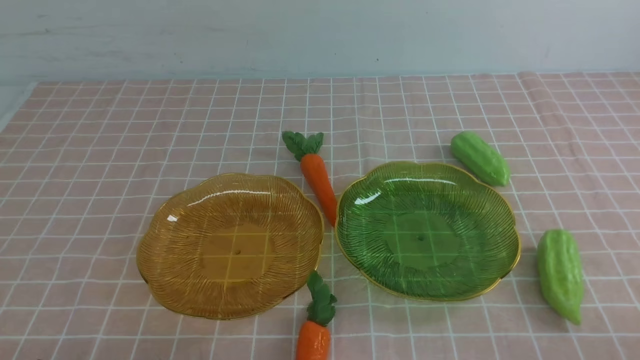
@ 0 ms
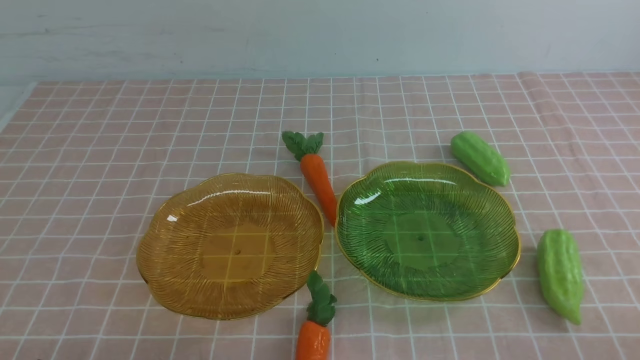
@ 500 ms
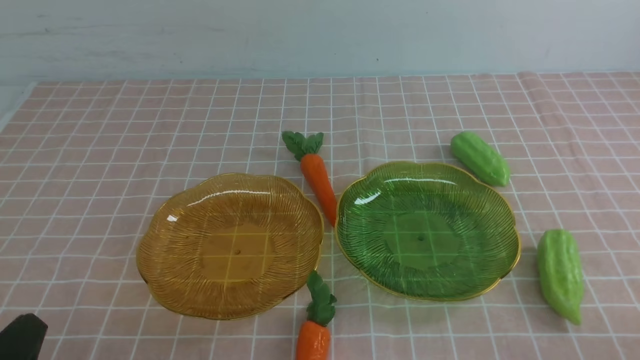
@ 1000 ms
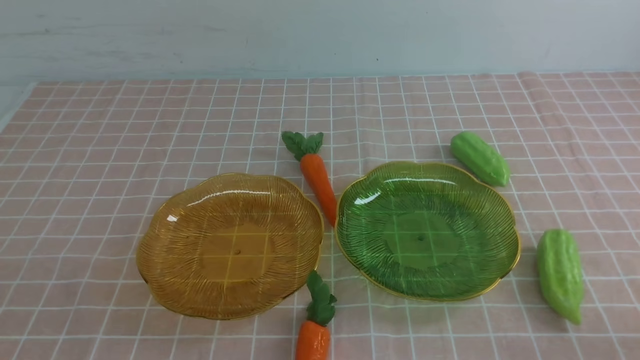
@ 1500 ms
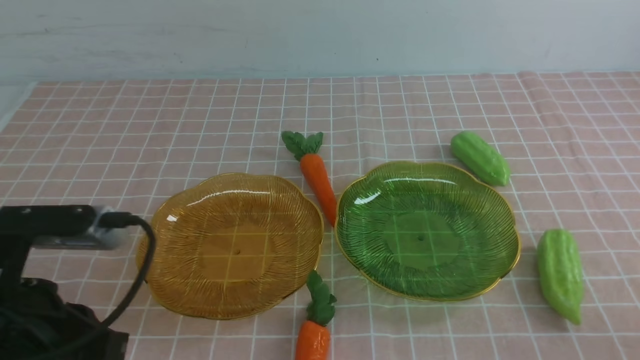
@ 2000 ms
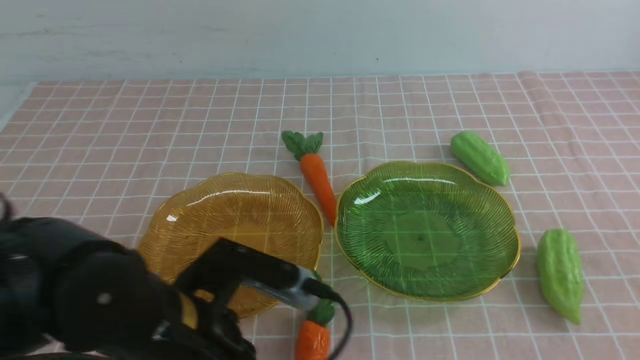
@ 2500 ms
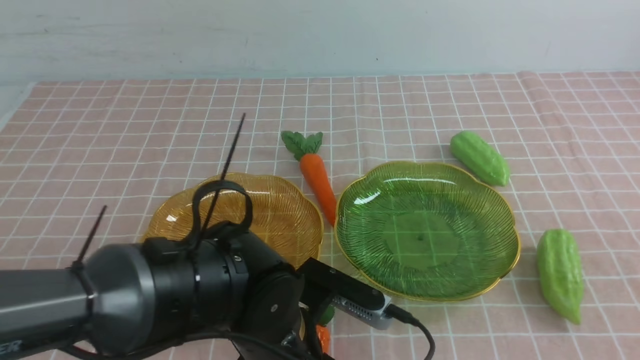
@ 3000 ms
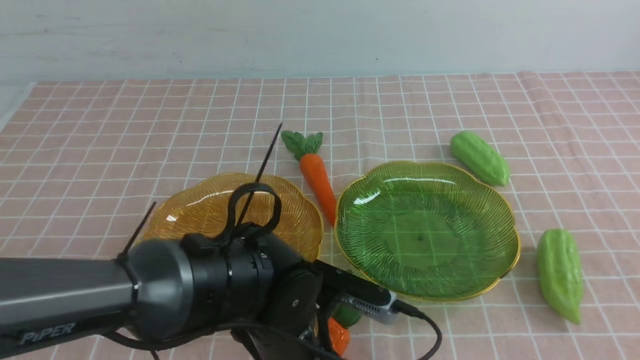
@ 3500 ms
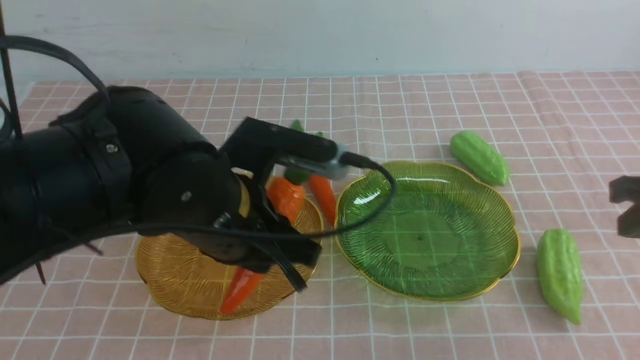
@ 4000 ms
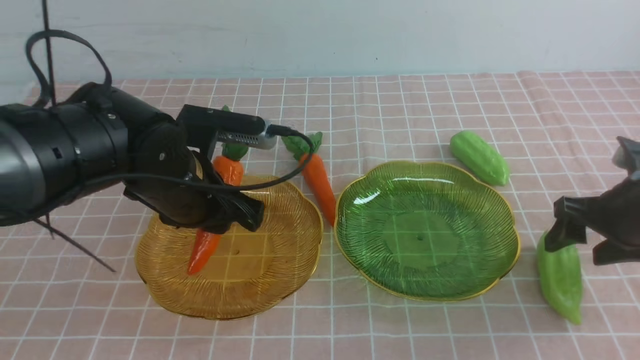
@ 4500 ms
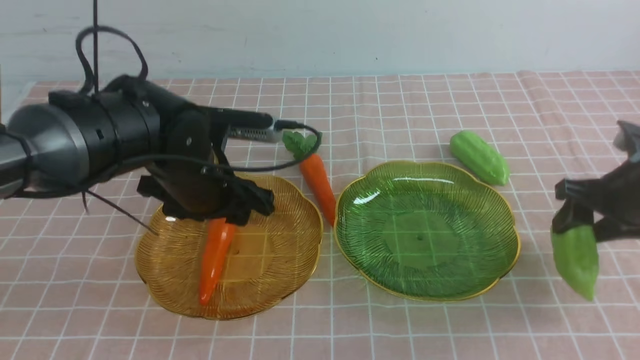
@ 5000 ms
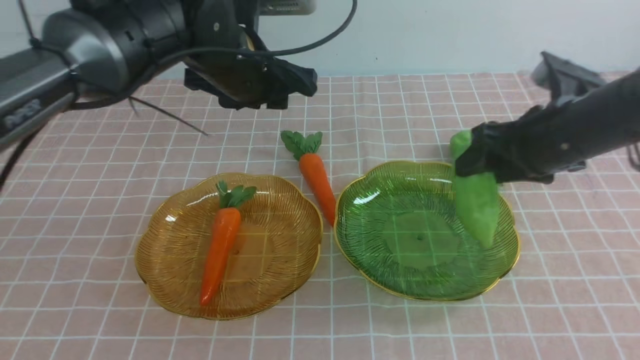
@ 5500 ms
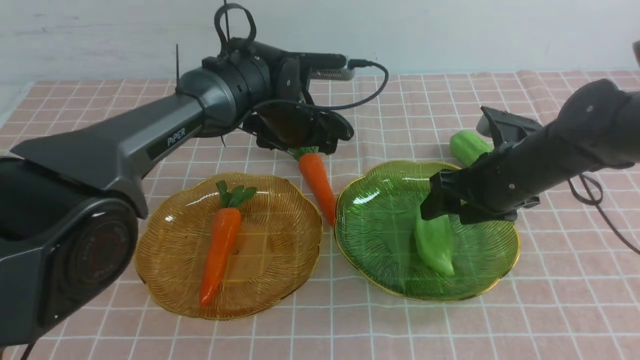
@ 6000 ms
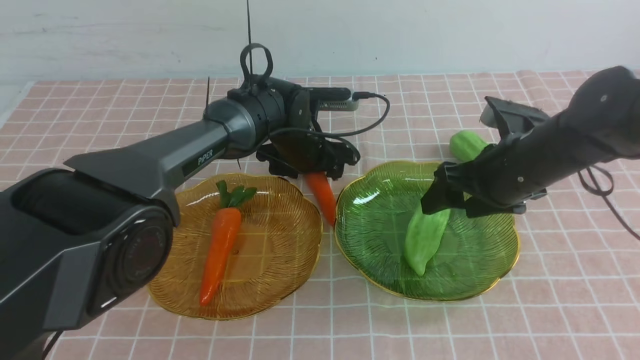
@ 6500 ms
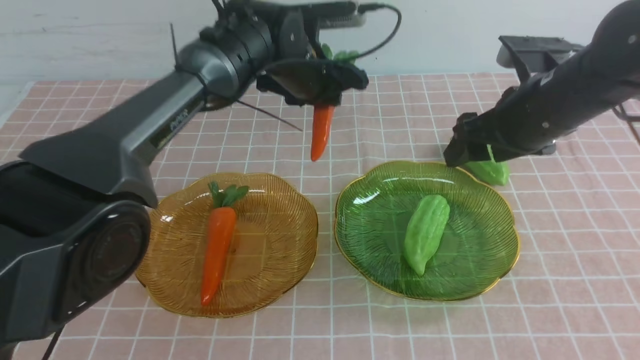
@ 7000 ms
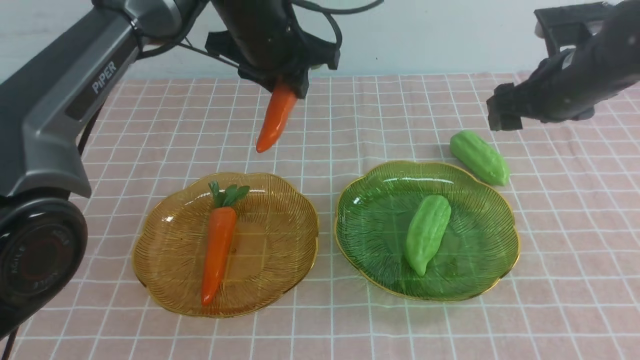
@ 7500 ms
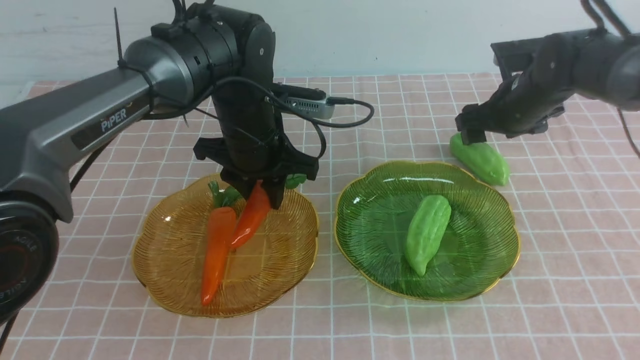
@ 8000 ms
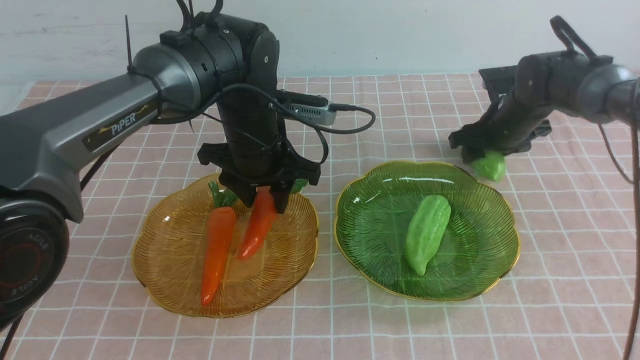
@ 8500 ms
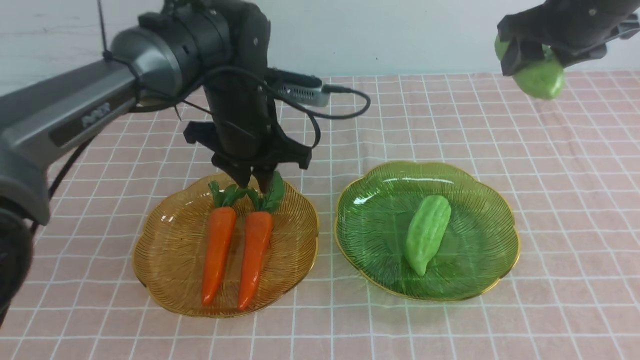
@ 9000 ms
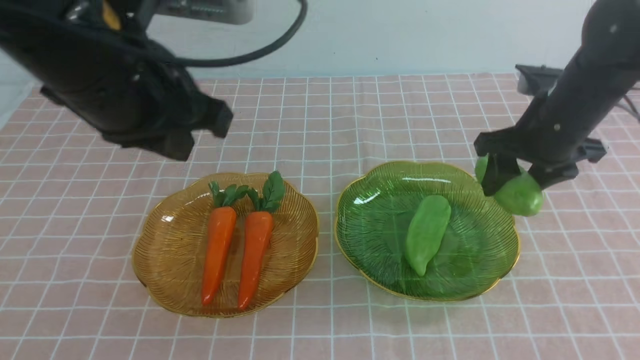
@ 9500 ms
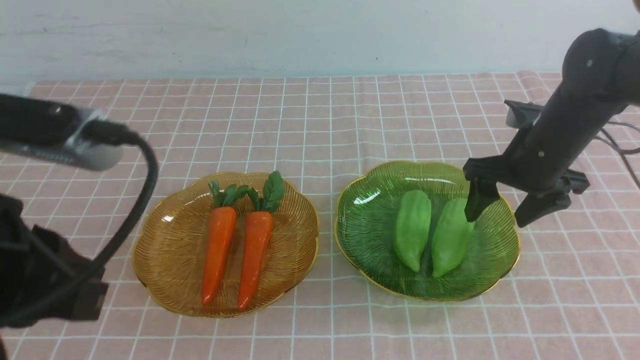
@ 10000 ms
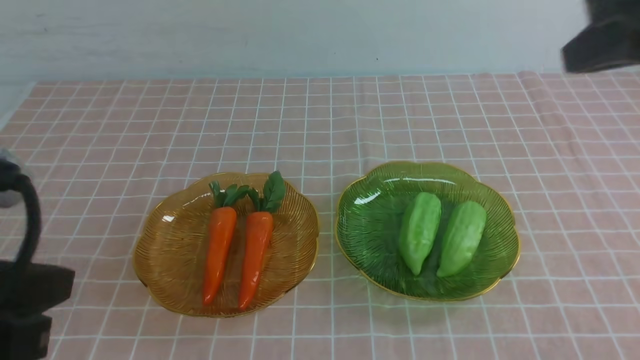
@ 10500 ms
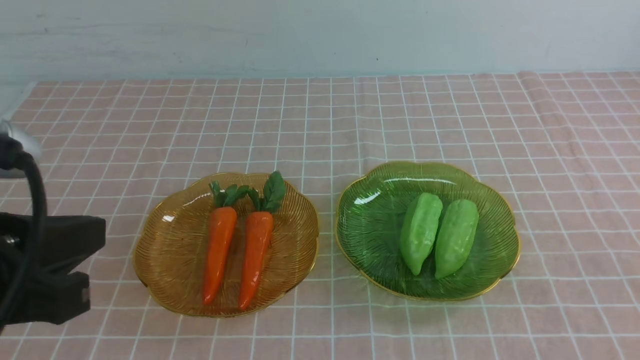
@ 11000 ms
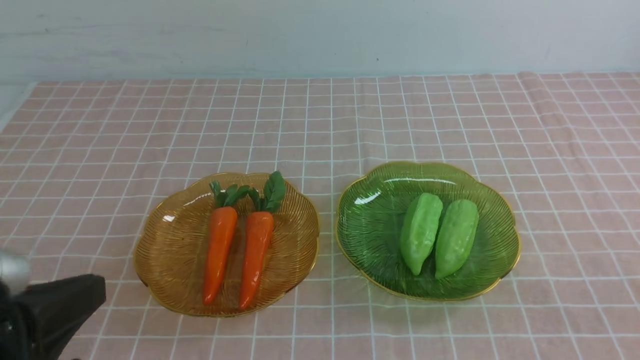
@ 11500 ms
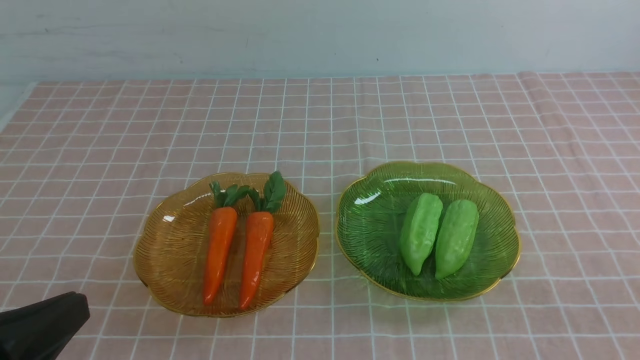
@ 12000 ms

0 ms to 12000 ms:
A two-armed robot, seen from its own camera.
Step, 0 ms to 4000 ms: use the left arm to grab a carrot and put it into the left plate.
Step, 4500 ms to 5500 ms: use the right arm to grab a chayote and put it into the right plate.
Step, 6000 ms to 8500 ms: use the left arm to grab a carrot and put it into the left plate.
Step, 9000 ms to 9500 ms: use the right arm to grab a chayote and put it into the right plate.
0 ms to 2000 ms: The left gripper heads upward and forward, covering approximately 15 cm.
2000 ms to 4000 ms: The left gripper shifts approximately 15 cm to the right and forward. Meanwhile the right gripper shifts some 20 cm forward.
4000 ms to 6000 ms: The right gripper moves to the left, forward and downward, about 15 cm, and opens; the left gripper is displaced forward and downward by approximately 25 cm, and opens up.
6000 ms to 8000 ms: The right gripper moves forward, some 10 cm. Meanwhile the left gripper is displaced backward and upward by roughly 10 cm, and closes.
8000 ms to 10000 ms: The right gripper goes roughly 10 cm backward, and travels upward and back again, approximately 15 cm each way. Meanwhile the left gripper goes about 30 cm backward, upward and to the left, and closes up.
10000 ms to 12000 ms: The left gripper is displaced downward and backward by roughly 10 cm, while the right gripper moves backward, about 35 cm, and closes its fingers.

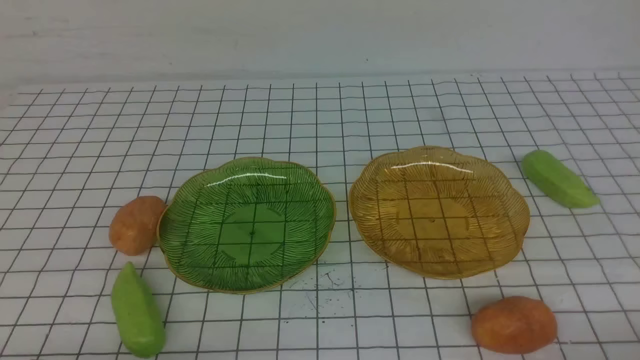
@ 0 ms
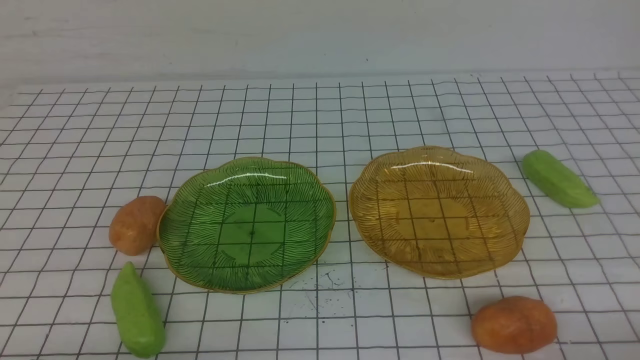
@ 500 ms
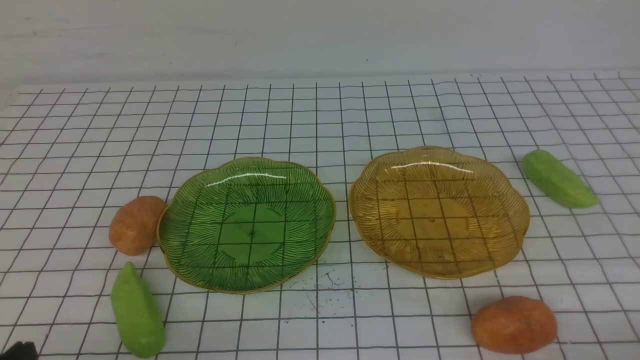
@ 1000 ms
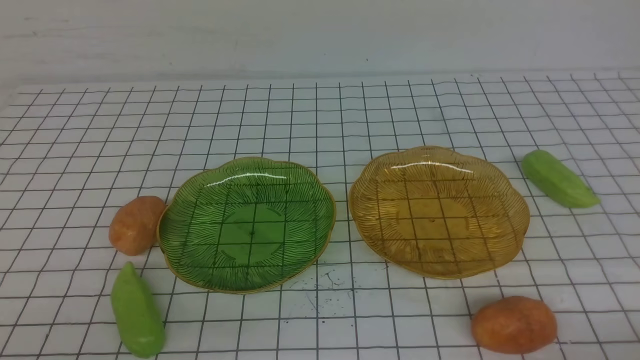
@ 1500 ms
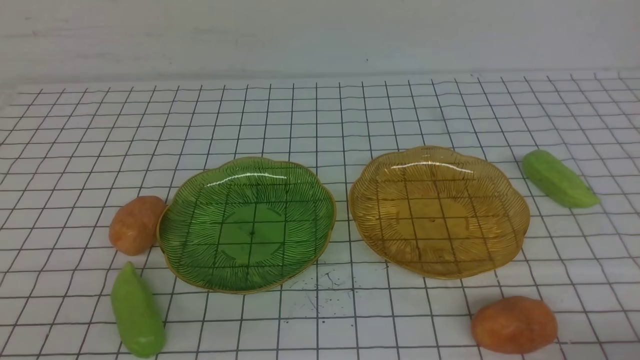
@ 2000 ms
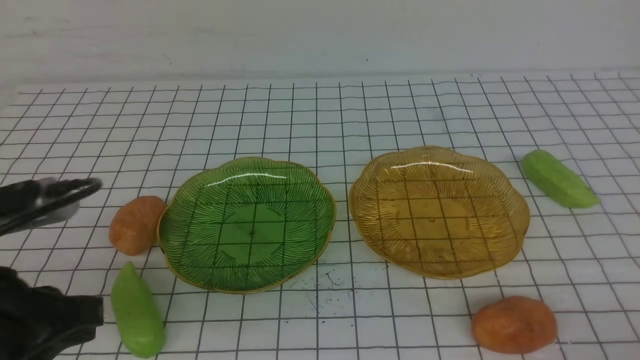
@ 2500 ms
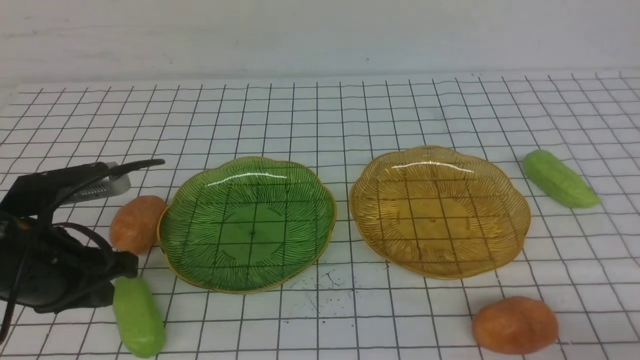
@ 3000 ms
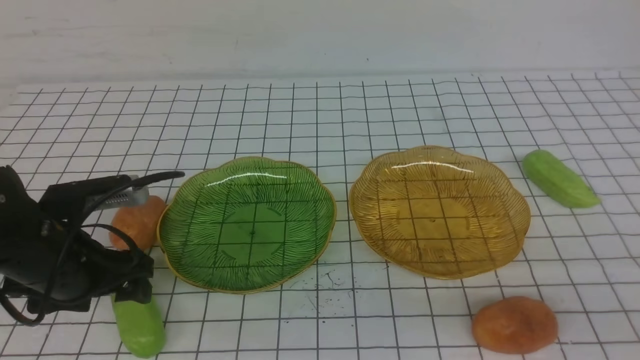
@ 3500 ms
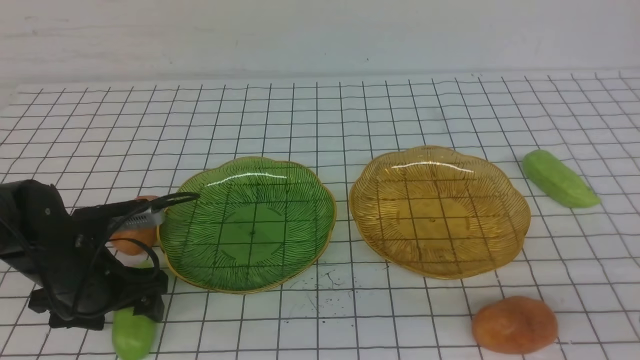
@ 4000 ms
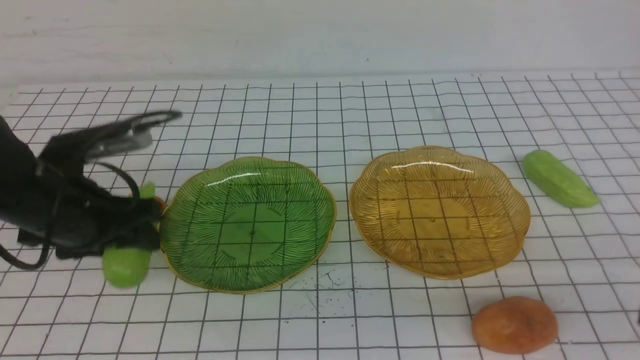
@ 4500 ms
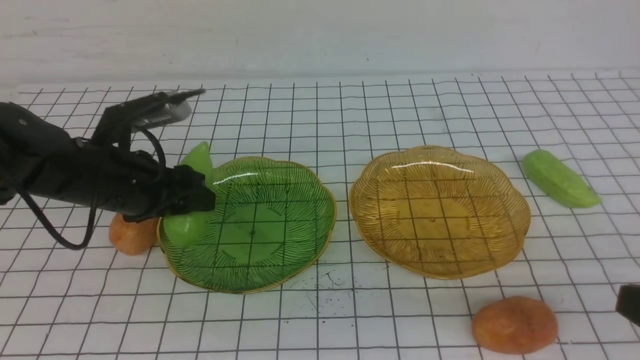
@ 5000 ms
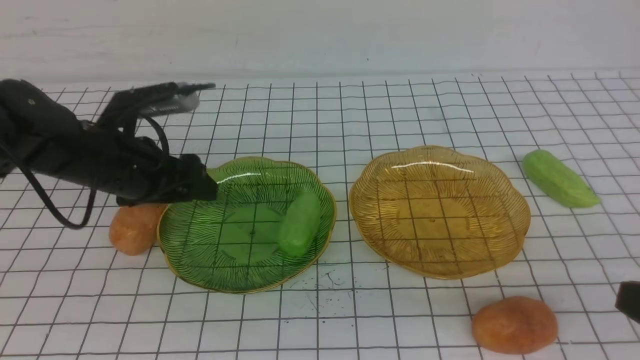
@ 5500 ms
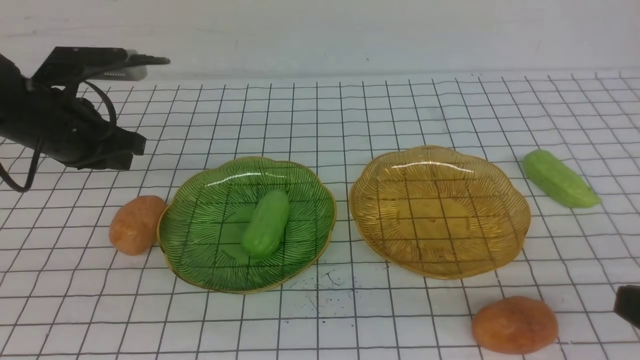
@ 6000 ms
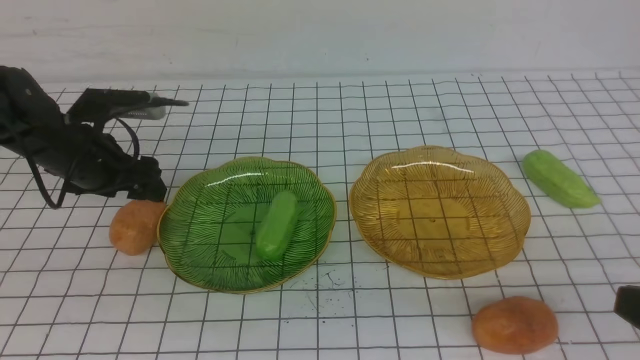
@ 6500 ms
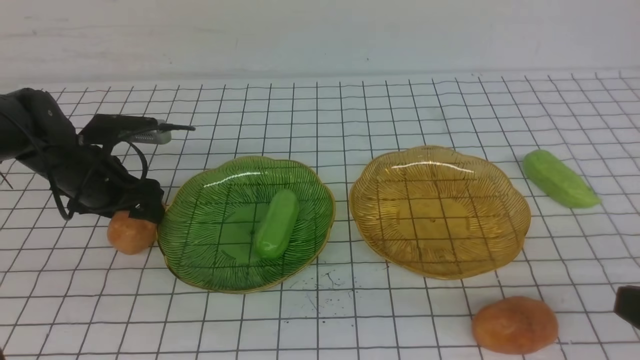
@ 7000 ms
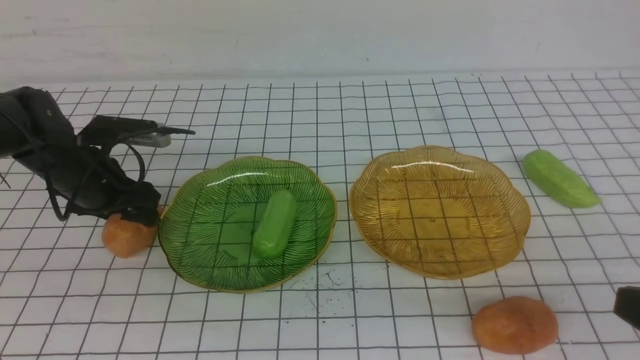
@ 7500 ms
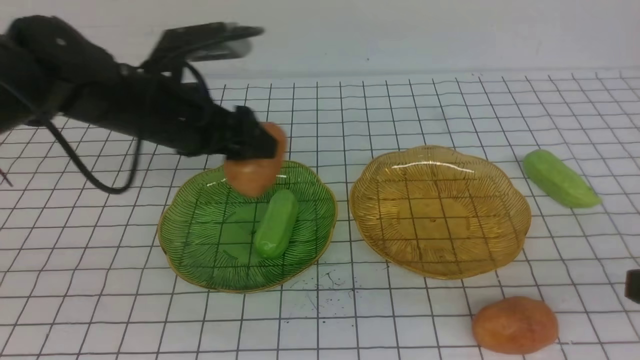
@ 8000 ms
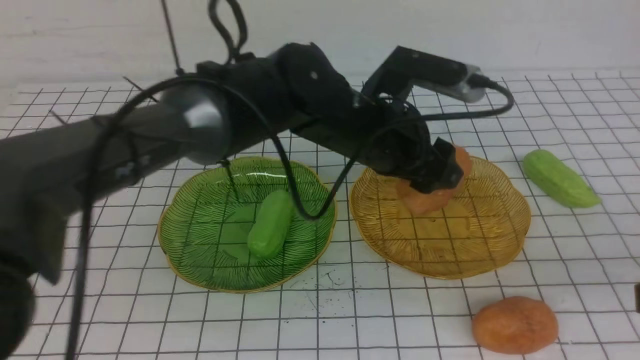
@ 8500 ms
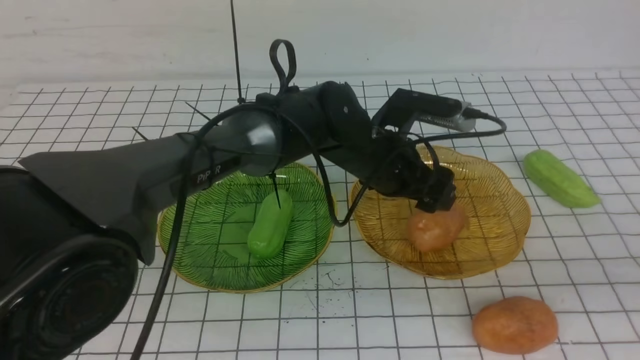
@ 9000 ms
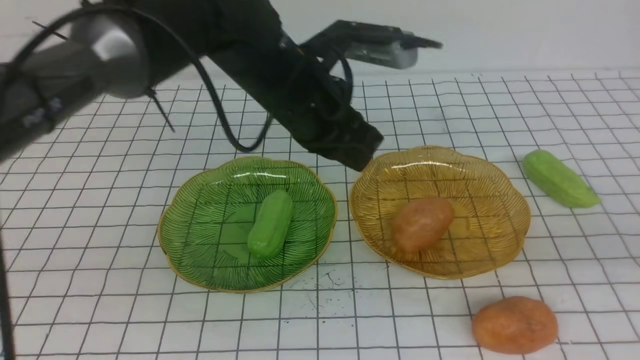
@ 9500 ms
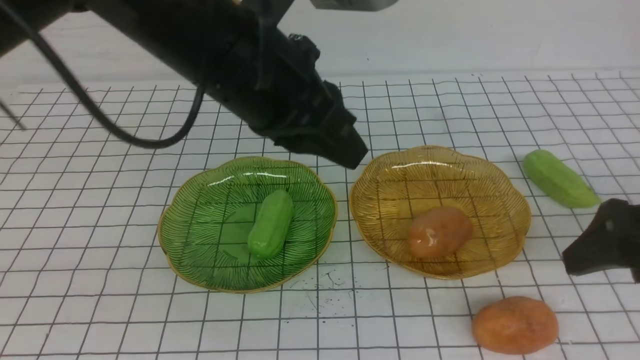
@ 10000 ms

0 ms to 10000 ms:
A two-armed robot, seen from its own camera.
Step, 0 ms to 5000 ms: use the left arm to grab a chayote and put it into the left plate.
Step, 5500 ms to 9000 ms: Grab a potato with your left arm and put it on the right plate.
2000 ms to 4000 ms: The right gripper heads upward, covering about 10 cm. Meanwhile the left gripper goes approximately 25 cm forward and downward, and opens up.
4000 ms to 6000 ms: The left gripper moves upward and forward, some 15 cm, and closes.
6000 ms to 8000 ms: The left gripper is displaced to the right by approximately 15 cm, and opens up.
8000 ms to 10000 ms: The left gripper heads upward, backward and to the right, covering some 15 cm, and closes its fingers. The right gripper heads forward, covering approximately 10 cm, and opens its fingers.
